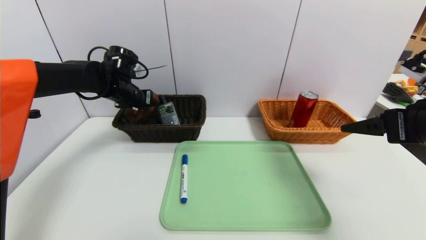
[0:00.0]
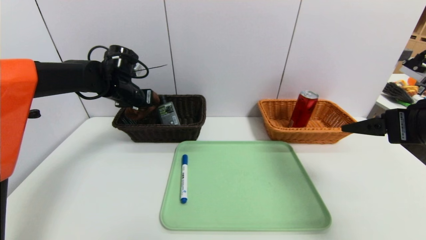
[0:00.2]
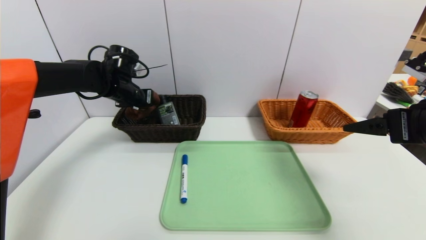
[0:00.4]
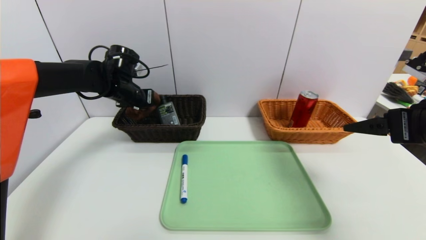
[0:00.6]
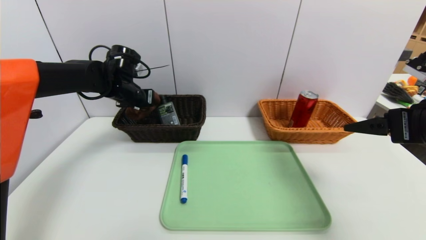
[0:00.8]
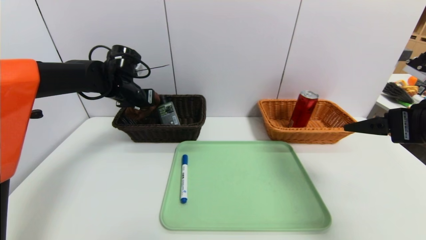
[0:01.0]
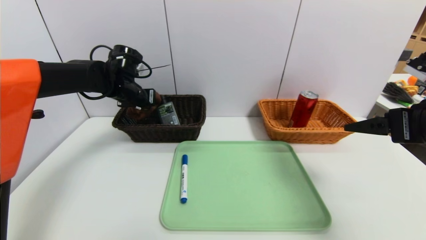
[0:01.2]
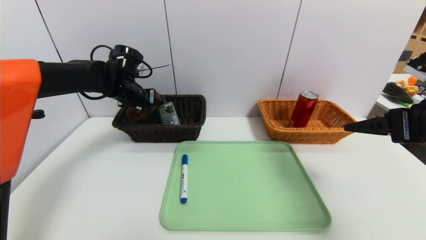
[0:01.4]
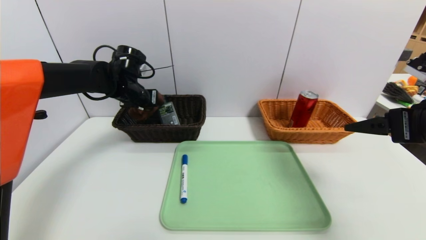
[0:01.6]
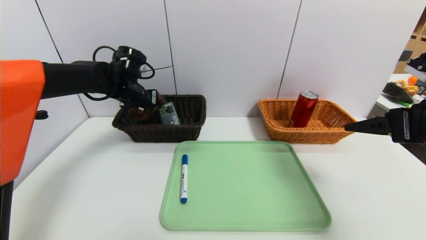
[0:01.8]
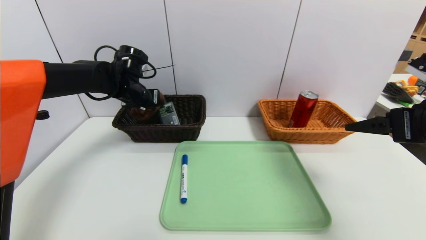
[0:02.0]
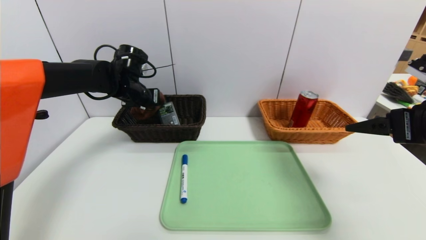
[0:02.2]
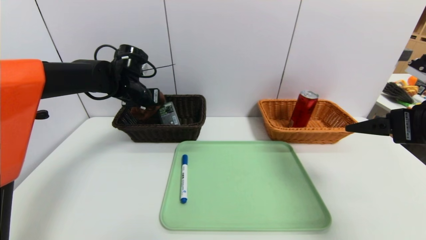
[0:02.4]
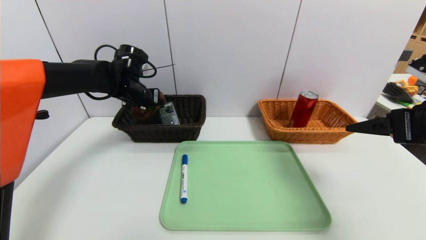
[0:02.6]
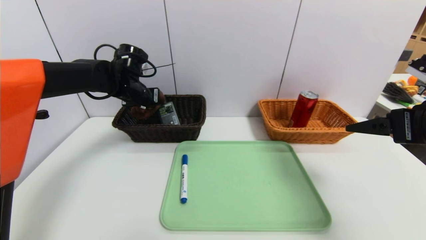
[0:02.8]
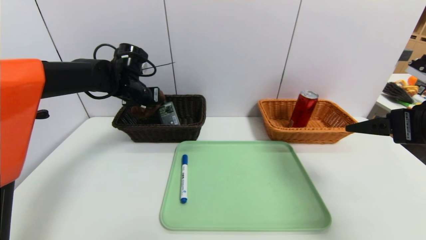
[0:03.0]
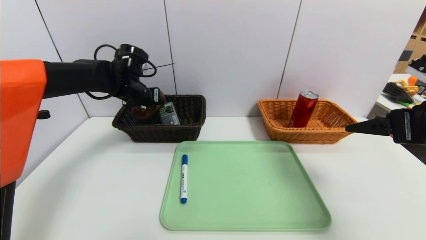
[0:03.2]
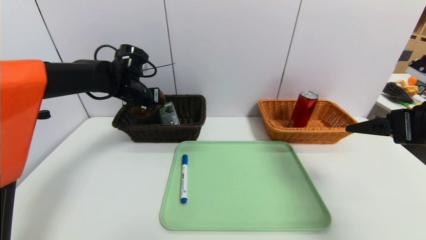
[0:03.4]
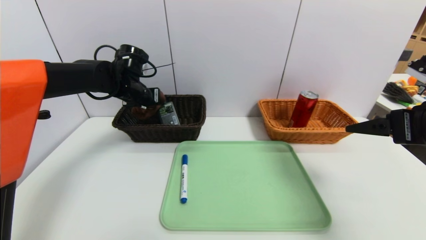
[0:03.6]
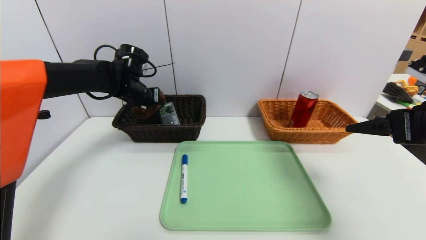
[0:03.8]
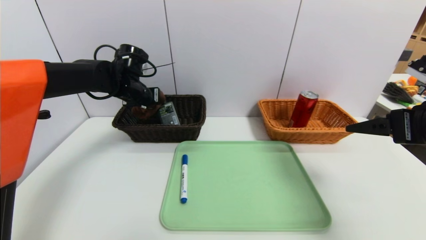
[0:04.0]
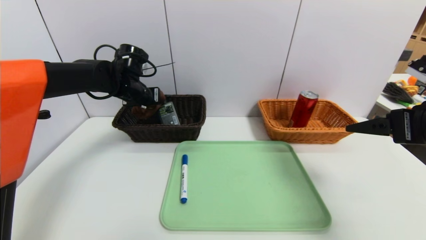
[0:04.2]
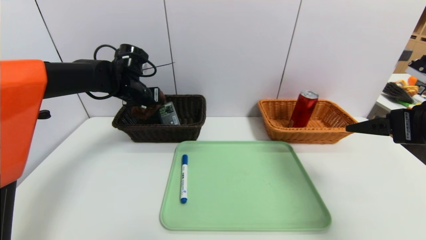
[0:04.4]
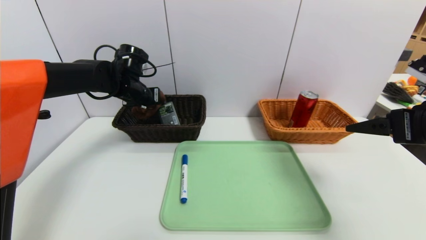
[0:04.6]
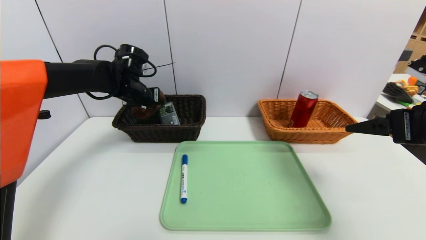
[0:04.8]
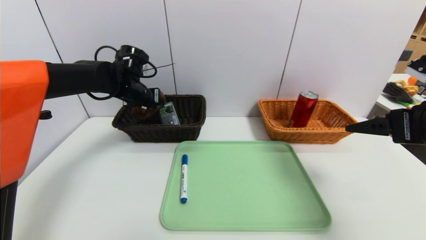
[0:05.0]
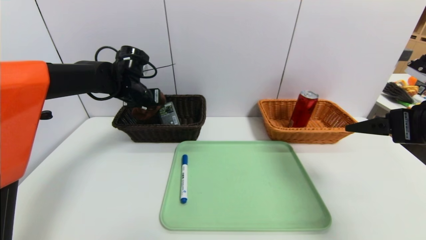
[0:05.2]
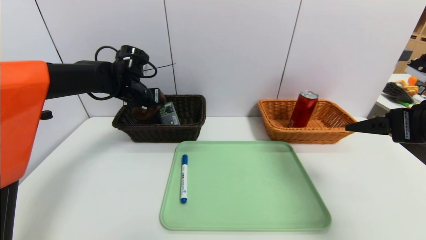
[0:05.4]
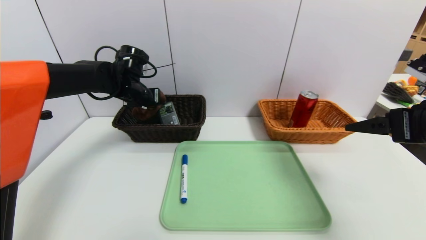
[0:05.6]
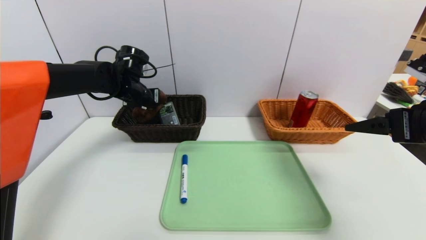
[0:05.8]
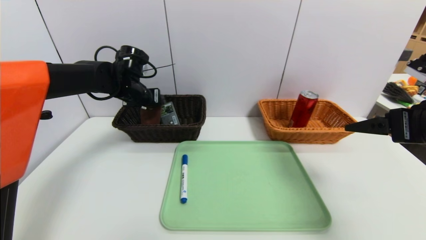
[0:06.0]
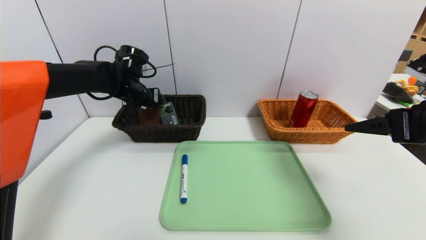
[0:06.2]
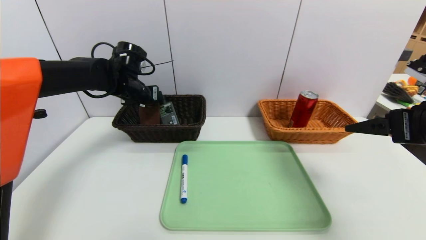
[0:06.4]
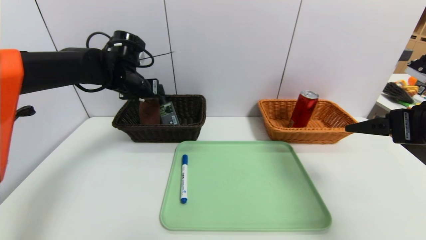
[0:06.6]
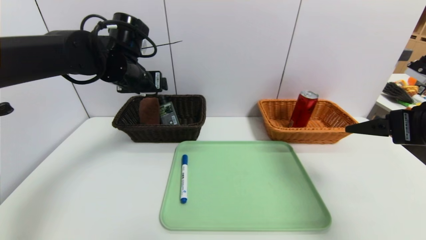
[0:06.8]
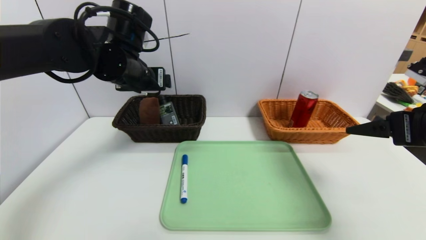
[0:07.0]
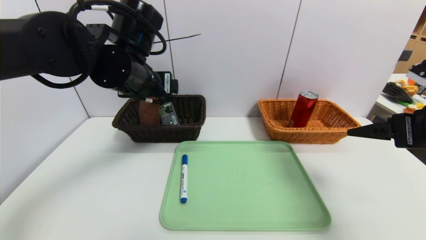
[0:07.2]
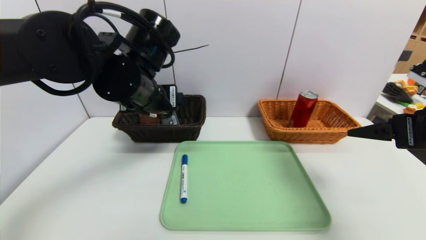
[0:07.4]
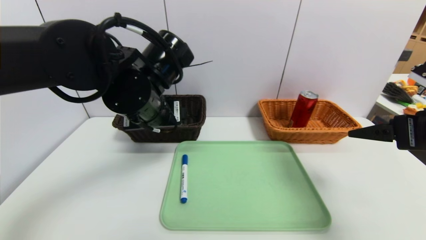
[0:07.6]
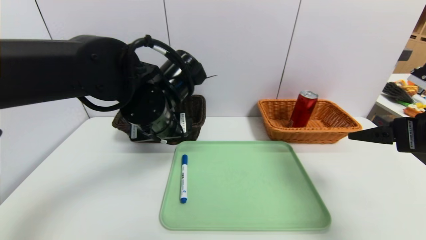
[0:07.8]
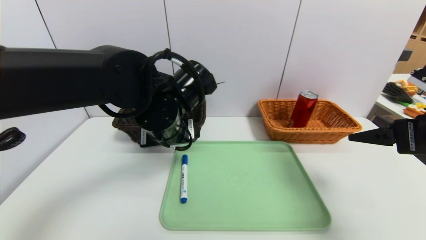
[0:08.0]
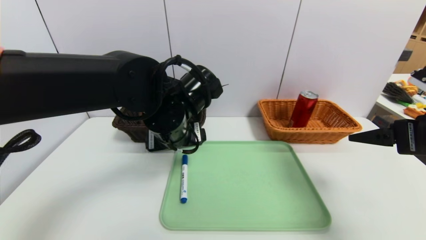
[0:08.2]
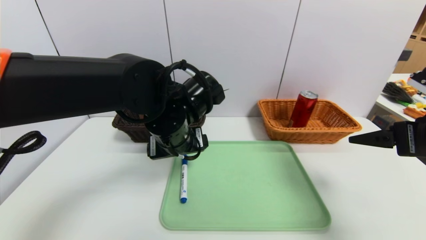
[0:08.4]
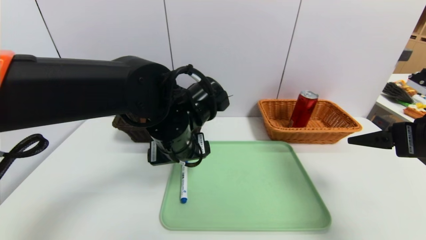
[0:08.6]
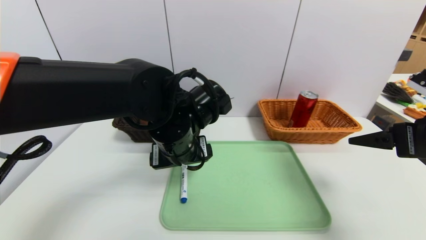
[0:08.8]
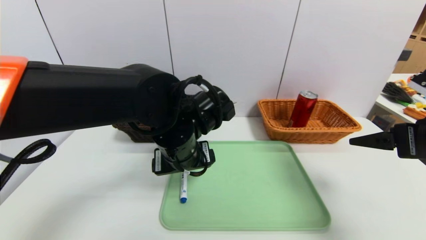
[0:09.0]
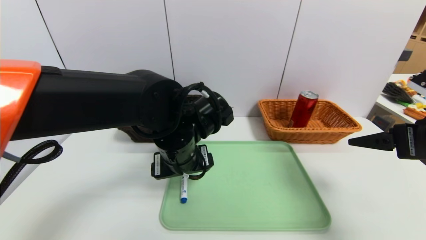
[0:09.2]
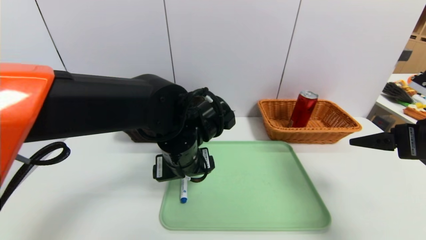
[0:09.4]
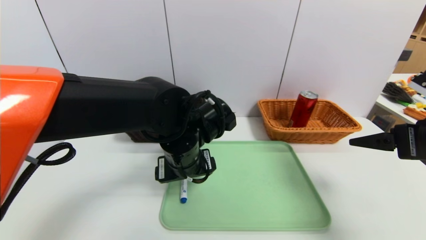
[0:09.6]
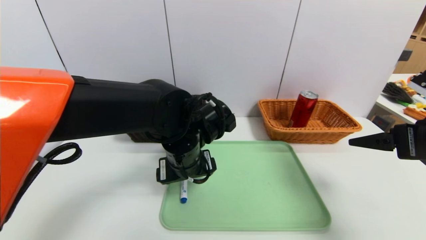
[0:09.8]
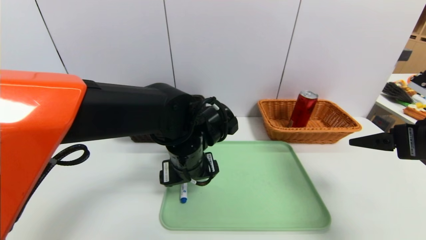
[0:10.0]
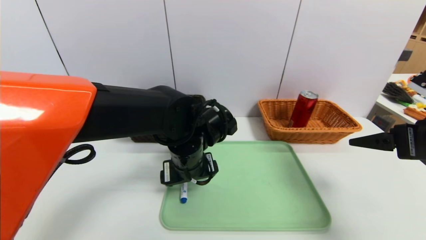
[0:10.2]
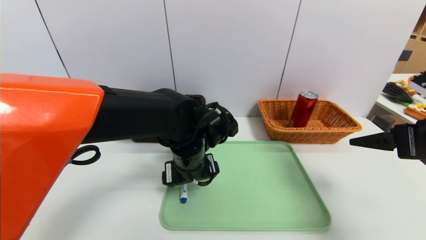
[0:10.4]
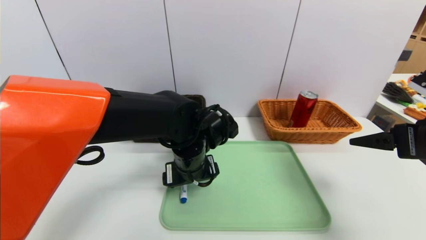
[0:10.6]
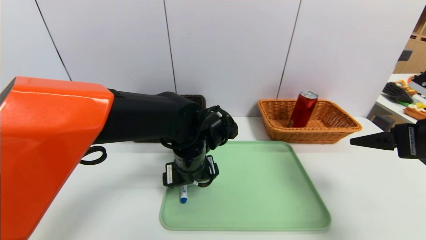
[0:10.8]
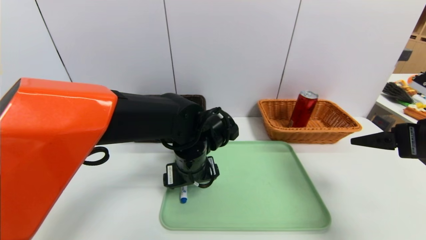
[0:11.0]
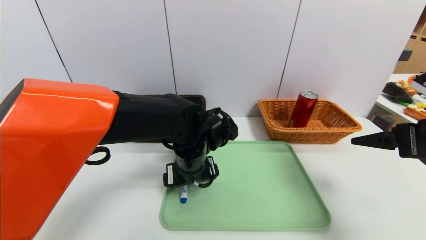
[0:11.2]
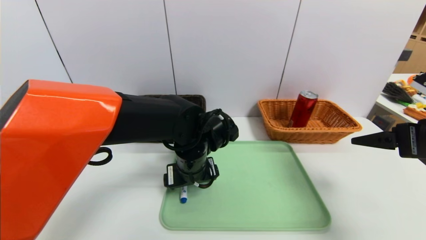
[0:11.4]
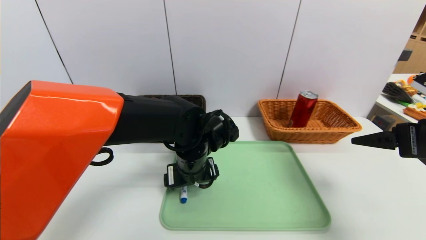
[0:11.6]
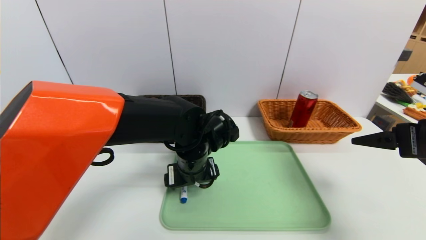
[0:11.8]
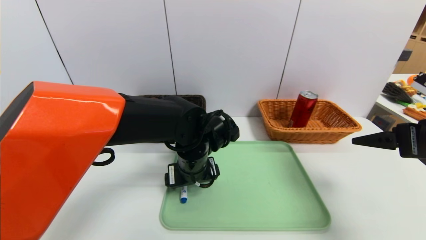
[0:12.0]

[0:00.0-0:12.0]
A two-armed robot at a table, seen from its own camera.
Task of the whole recording: place the food in the right basket with the right gripper, and place the non food items in the left basket with the left gripper.
Step, 0:00.0 to 0:07.6: Grasp the brown towel and put it in the left basket.
0:00.0 to 0:01.6: The grippers move only a little.
0:01.6 to 0:04.4: Both grippers stay put.
0:04.4 to 0:06.0: The left gripper opens.
0:06.0 to 0:07.6: The left gripper travels backward and to the right by about 20 cm.
0:07.6 to 0:09.0: The left gripper shifts some 5 cm downward.
0:10.4 to 0:12.0: The grippers make only small movements.

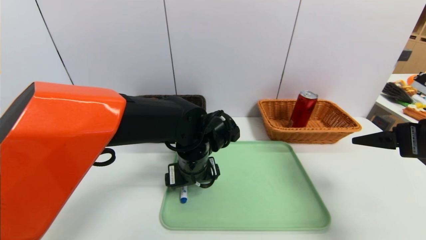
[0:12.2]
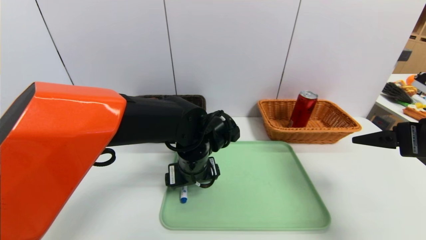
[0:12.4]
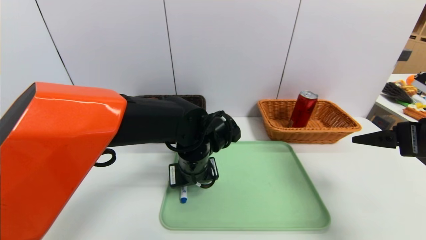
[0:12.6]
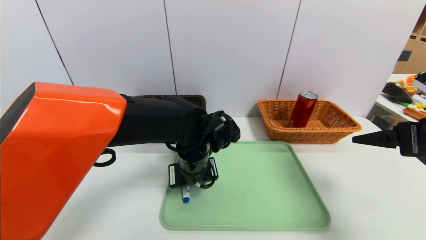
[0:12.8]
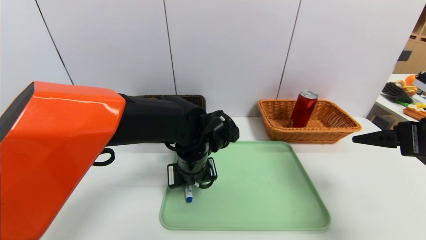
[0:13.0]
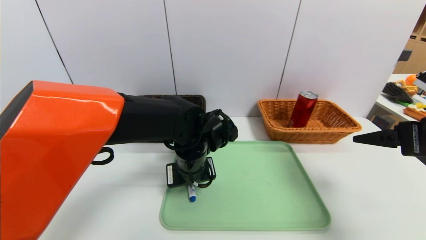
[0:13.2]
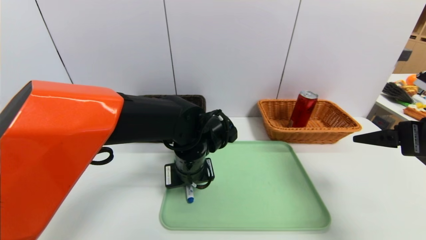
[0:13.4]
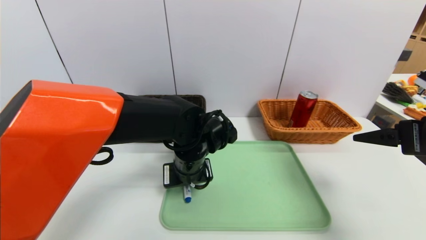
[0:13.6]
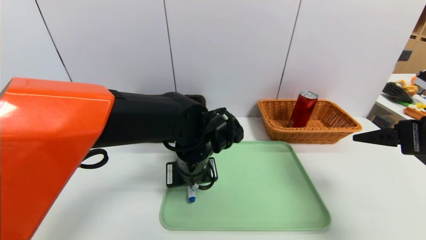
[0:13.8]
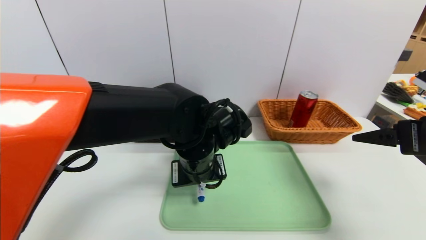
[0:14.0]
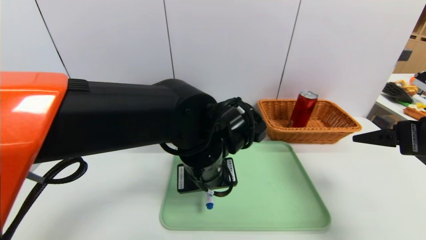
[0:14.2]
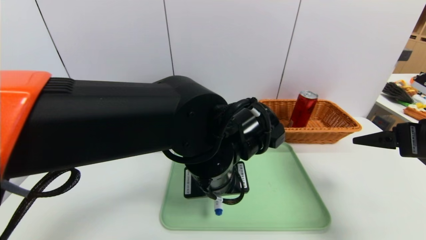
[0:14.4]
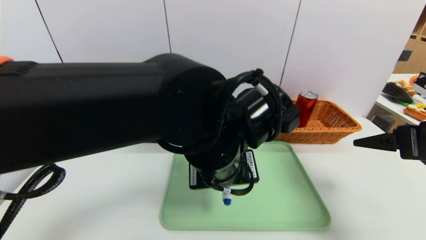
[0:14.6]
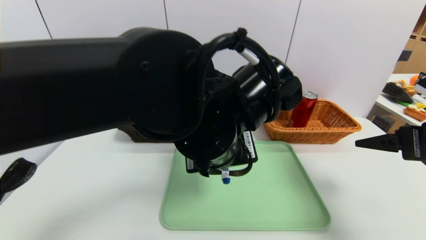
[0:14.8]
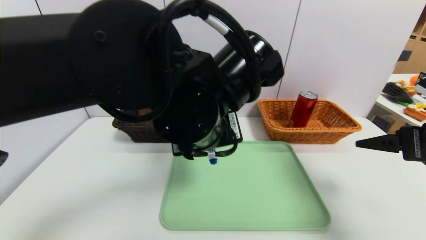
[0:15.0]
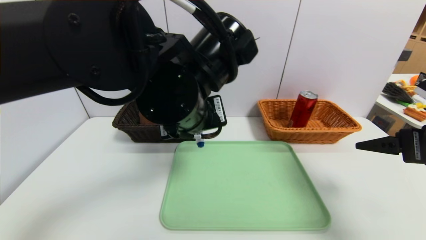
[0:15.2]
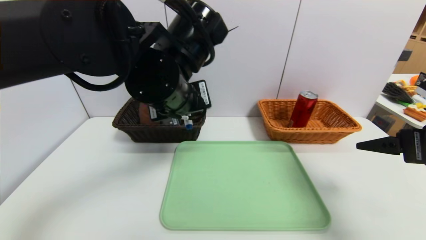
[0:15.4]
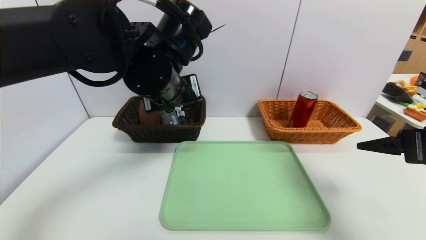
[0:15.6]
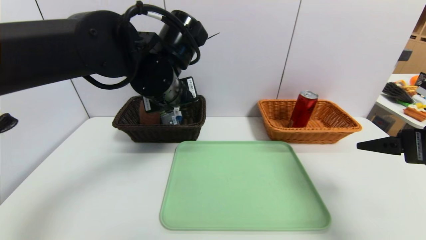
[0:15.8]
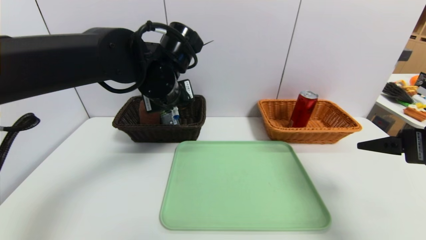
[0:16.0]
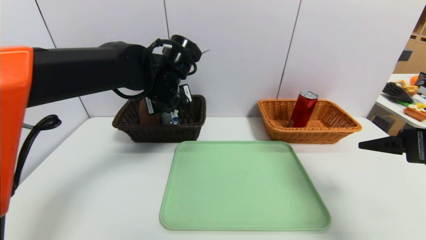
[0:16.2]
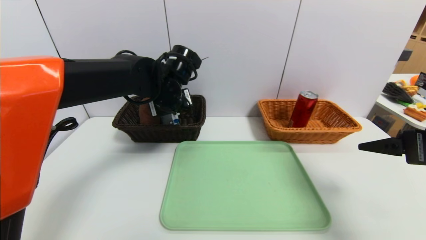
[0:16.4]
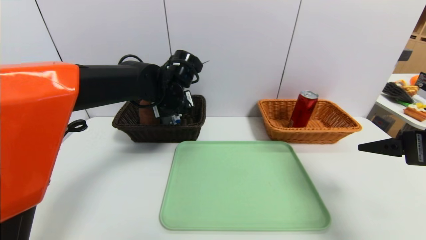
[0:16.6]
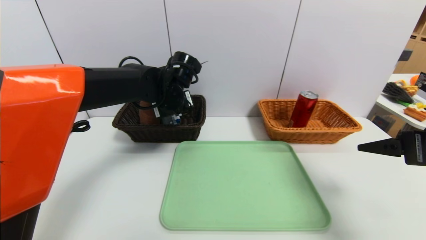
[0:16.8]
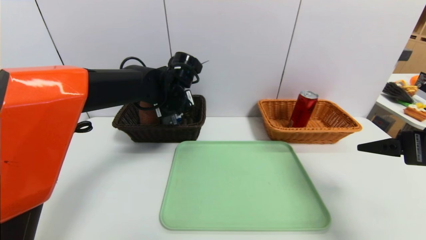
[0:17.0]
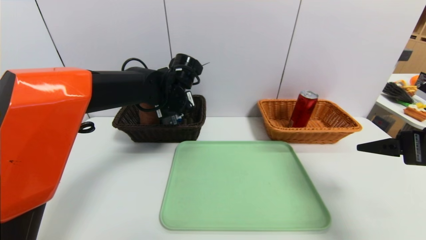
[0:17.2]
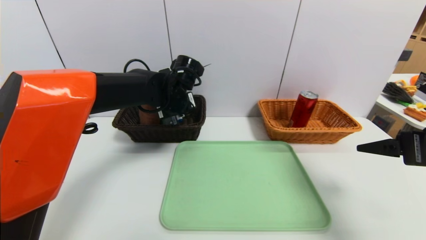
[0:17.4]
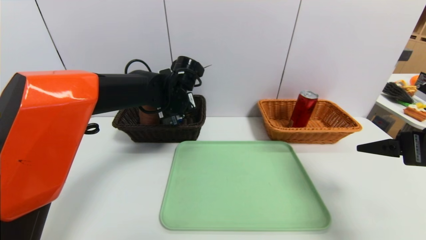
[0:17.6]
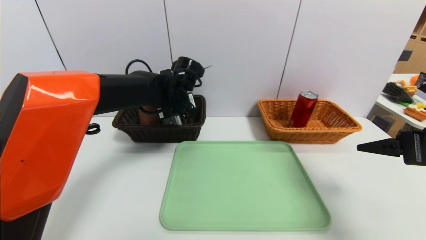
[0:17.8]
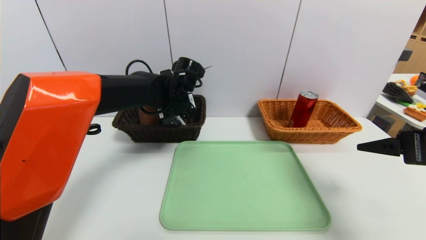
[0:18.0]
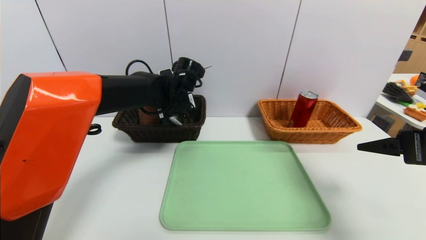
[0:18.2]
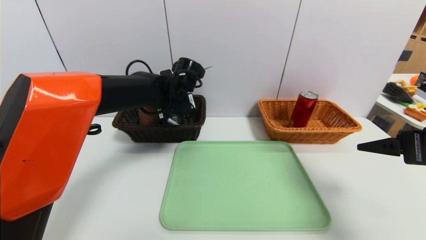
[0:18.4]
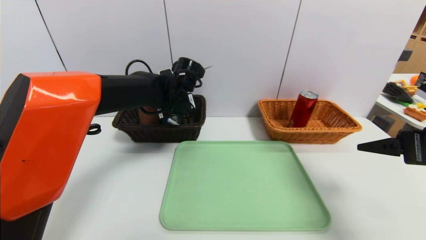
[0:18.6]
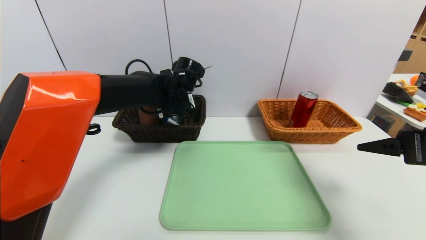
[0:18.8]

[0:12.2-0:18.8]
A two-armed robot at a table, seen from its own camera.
Task of the whole recording: place the food in the right basket with the right gripper, and place the non food items in the left basket with the left gripper.
0:12.2 to 0:13.8: The left gripper closes up.
0:13.8 to 0:15.4: The left gripper is displaced upward by roughly 15 cm.
0:15.4 to 0:17.2: The left gripper moves forward and downward, roughly 15 cm.
0:17.2 to 0:18.8: The left gripper opens its fingers.
